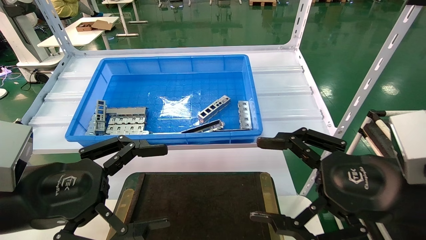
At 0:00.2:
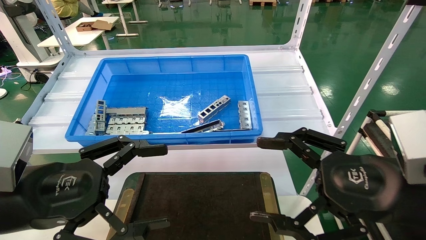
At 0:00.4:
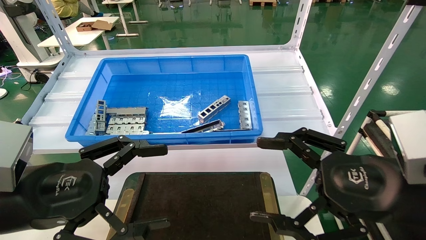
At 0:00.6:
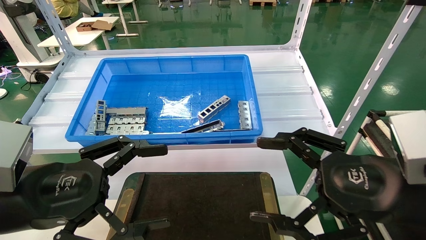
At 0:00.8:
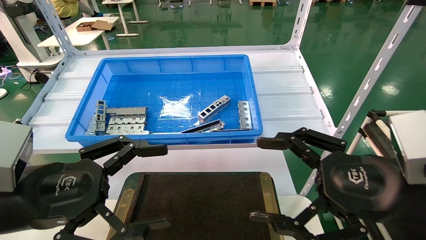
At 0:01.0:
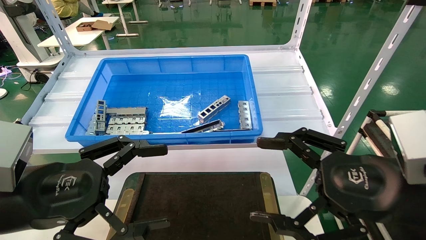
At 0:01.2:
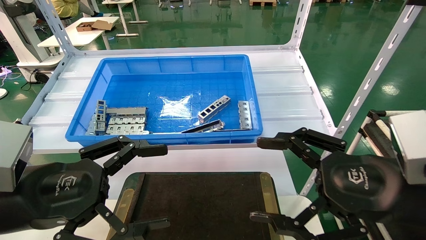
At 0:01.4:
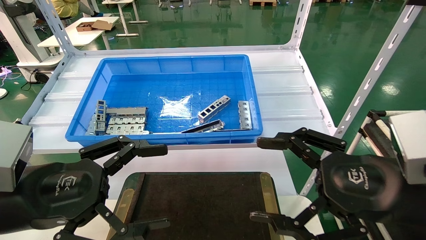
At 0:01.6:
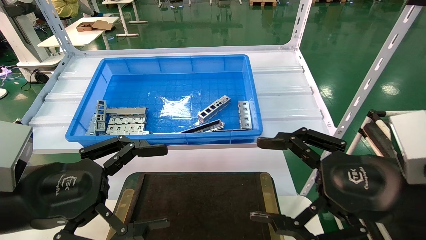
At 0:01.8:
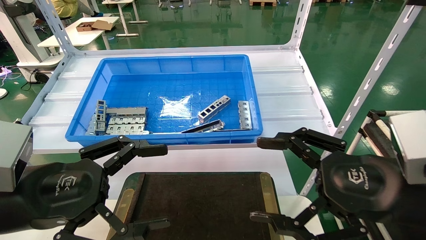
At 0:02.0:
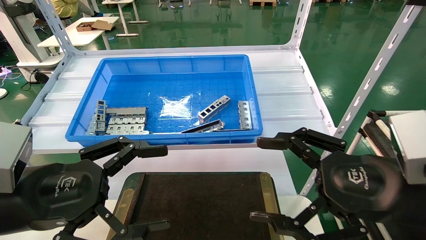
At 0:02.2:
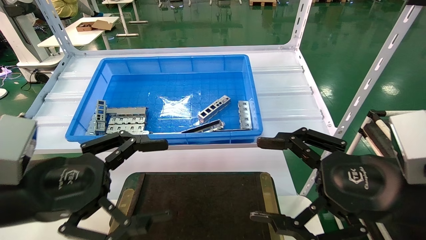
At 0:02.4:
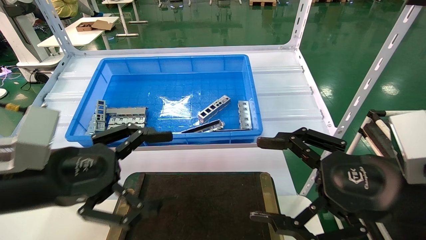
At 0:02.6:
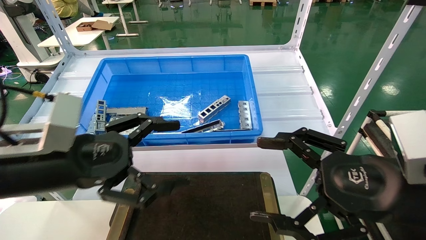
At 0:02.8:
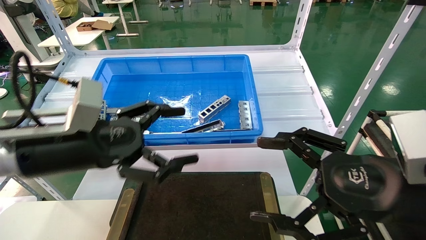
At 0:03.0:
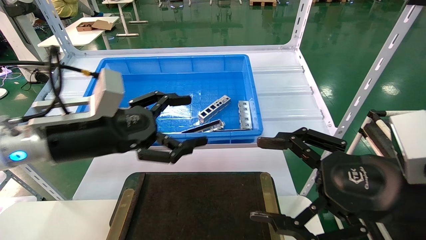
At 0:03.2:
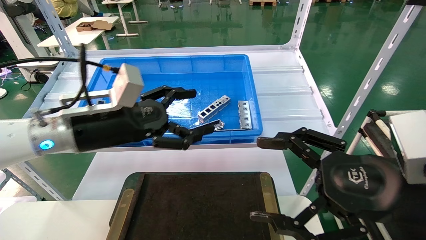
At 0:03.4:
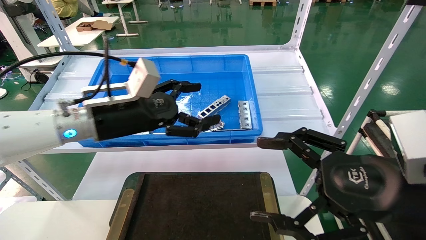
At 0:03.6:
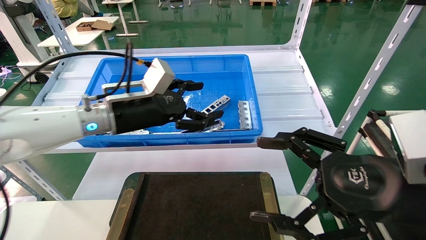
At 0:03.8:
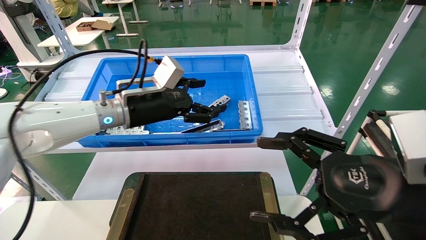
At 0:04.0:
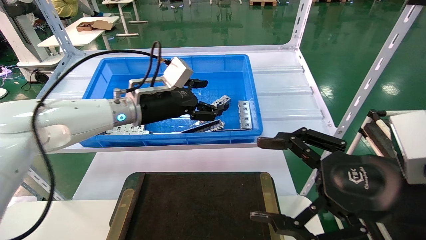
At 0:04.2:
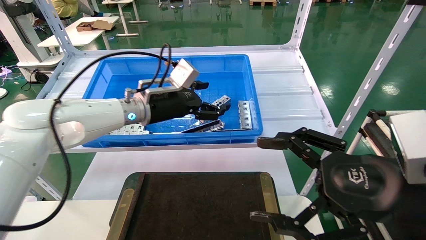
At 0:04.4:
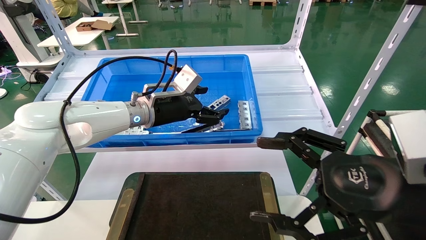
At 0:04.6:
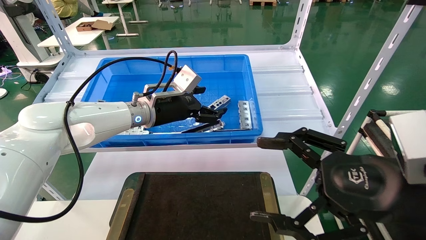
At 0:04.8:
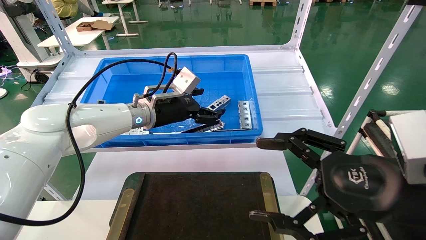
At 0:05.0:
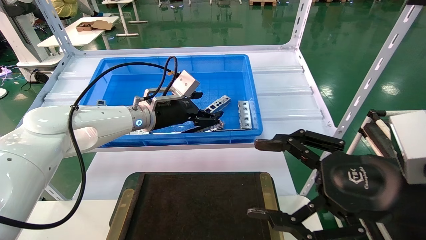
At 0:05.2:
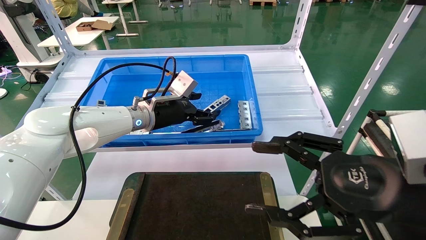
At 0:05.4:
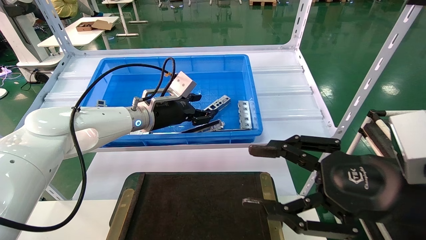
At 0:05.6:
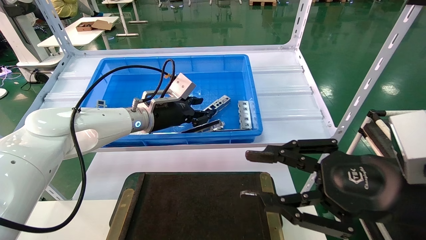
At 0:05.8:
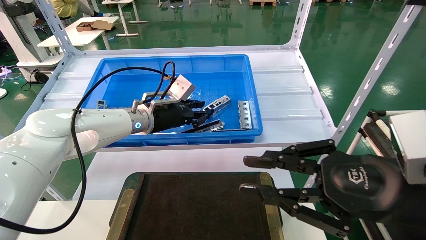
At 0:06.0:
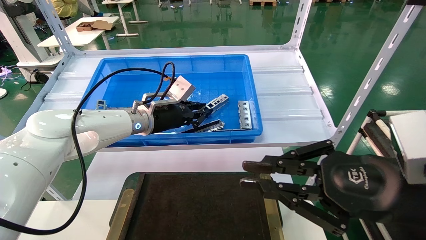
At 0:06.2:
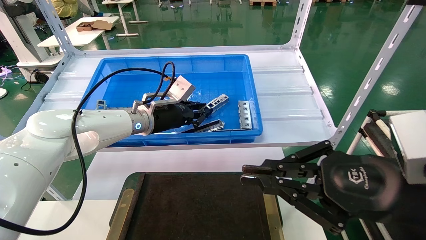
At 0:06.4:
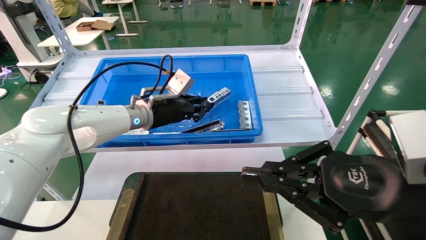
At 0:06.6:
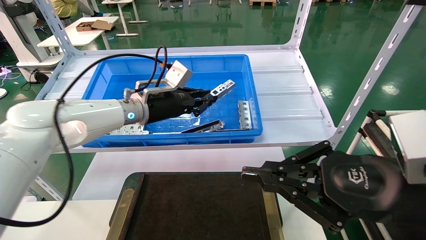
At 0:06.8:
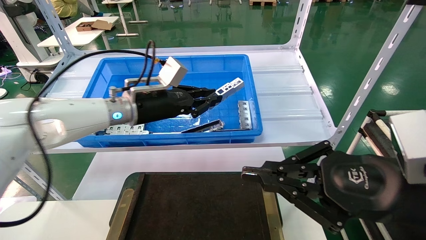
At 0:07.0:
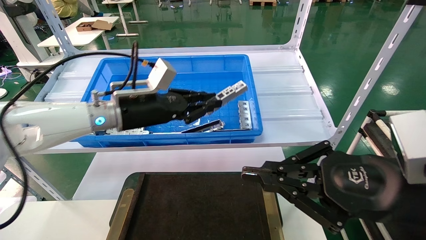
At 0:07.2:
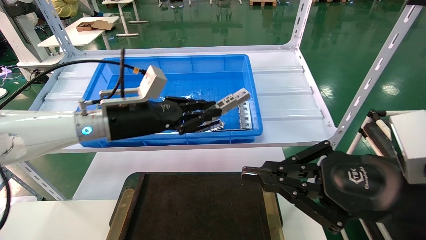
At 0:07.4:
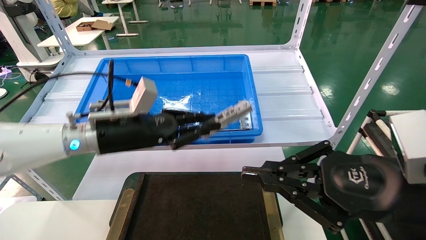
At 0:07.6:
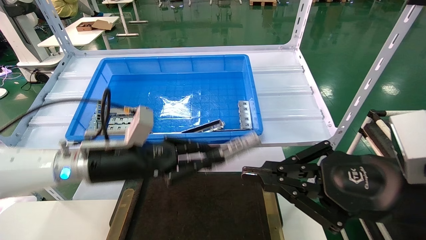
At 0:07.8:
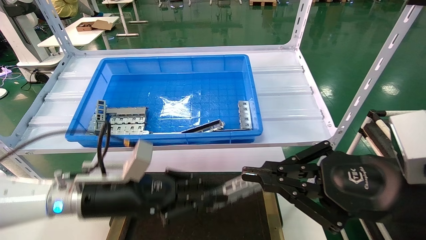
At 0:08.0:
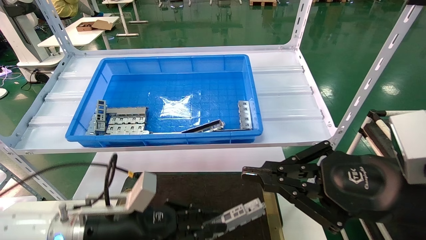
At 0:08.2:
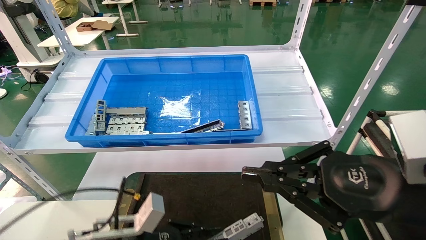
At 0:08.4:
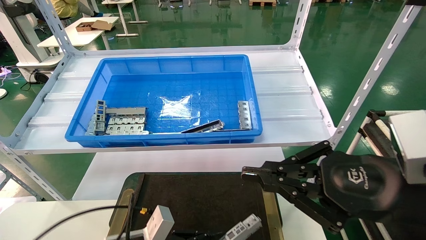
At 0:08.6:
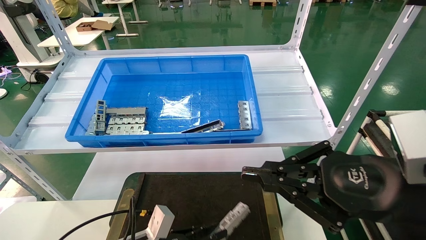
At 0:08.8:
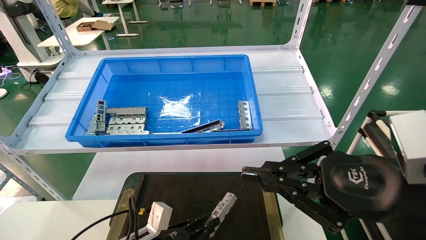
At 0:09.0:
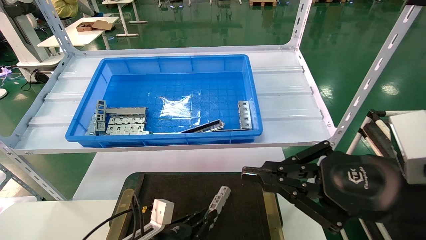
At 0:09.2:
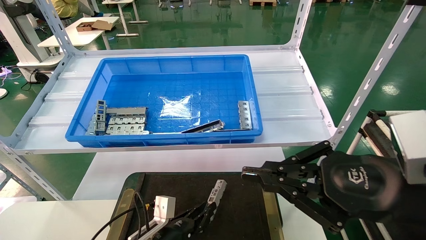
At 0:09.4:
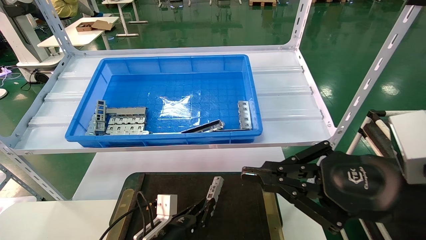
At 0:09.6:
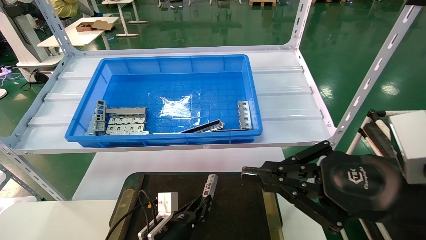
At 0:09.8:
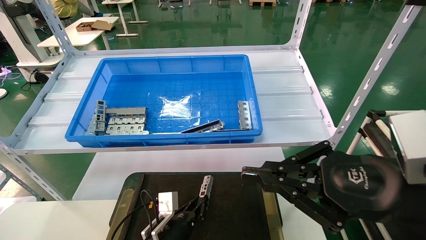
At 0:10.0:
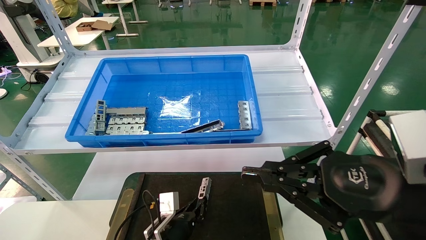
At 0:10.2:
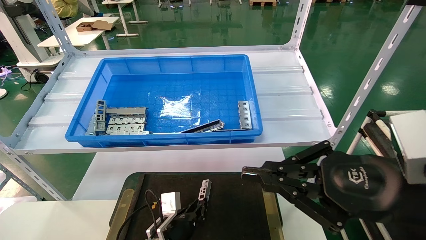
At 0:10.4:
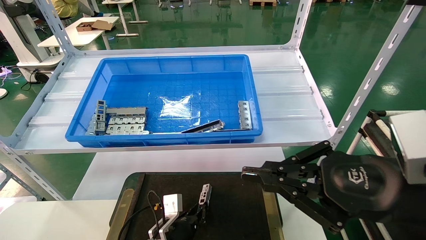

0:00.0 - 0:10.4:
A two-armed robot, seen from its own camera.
Task of the whole recording: Grasp the part with one hand and place it on the black container.
Step, 0:02.4 - 0:06.6: Pick up the front USB bracket from the feeding area.
0:00.0 - 0:01.4: The two grippers keep their place.
0:01.4 - 0:03.0: The left gripper goes approximately 10 cm forward.
0:03.0 - 0:04.4: The left gripper goes roughly 20 cm forward and to the right.
0:04.4 - 0:06.0: The right gripper closes. The left gripper closes its fingers.
0:06.0 - 0:07.4: The left gripper is displaced backward and to the left by approximately 10 cm.
0:07.4 - 0:09.0: The left gripper shifts roughly 25 cm downward.
0:09.0 - 0:10.4: The left gripper moves forward, some 5 cm.

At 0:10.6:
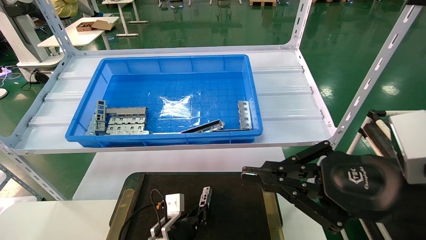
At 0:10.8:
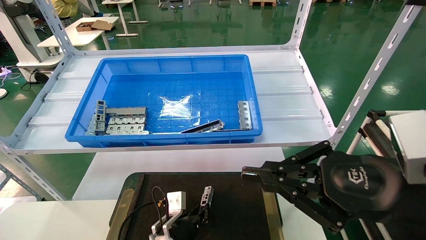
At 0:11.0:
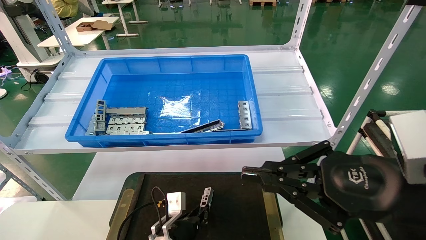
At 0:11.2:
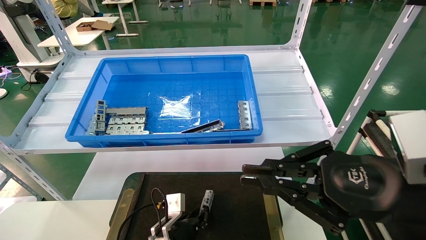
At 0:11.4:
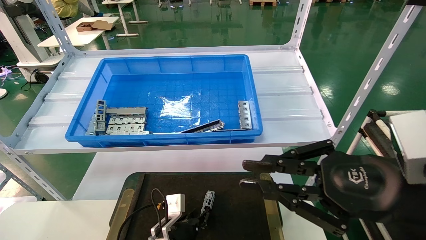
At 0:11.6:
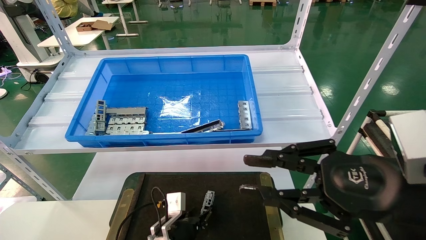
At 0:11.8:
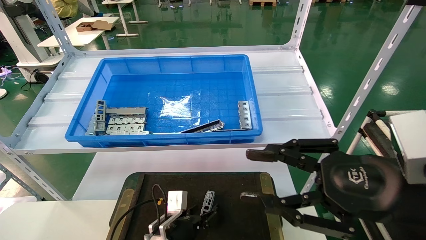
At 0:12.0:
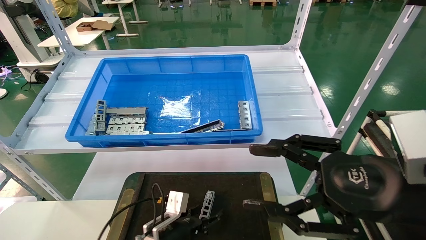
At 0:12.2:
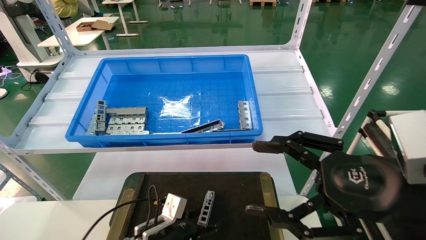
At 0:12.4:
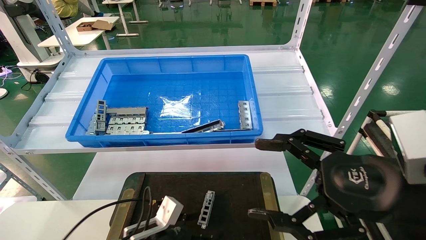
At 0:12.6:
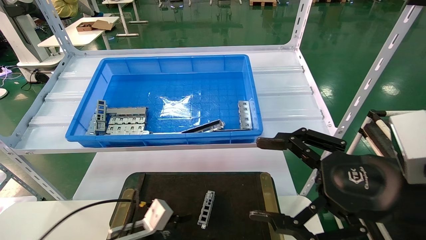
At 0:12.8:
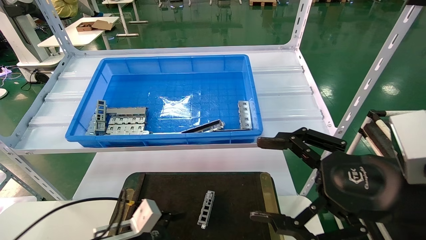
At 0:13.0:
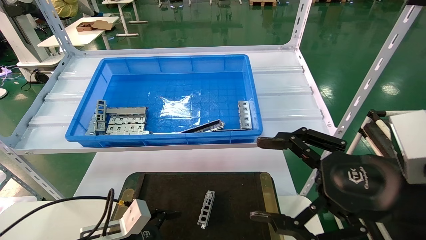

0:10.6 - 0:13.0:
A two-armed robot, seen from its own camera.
Task of the whole recording: Grasp the part with one hand and place it on the black container.
0:10.6 - 0:11.8: The left gripper opens up. The right gripper opens its fingers.
0:11.8 - 0:13.0: The right gripper opens up; the left gripper goes roughly 15 cm to the left, backward and upward, and opens up.
